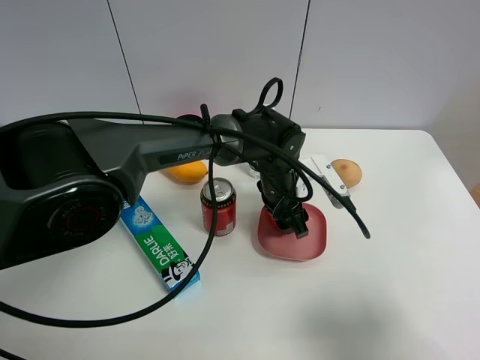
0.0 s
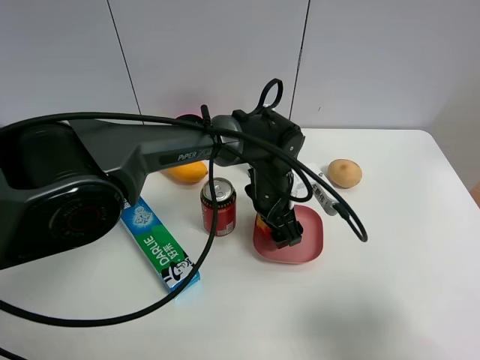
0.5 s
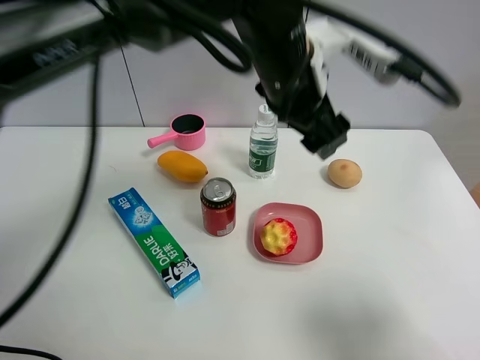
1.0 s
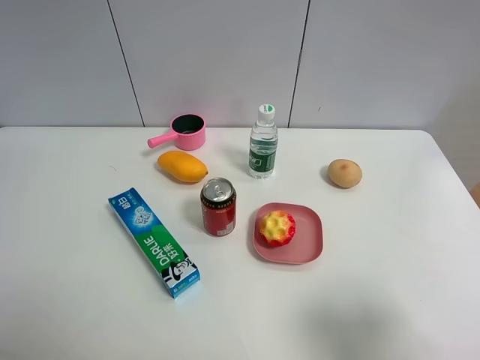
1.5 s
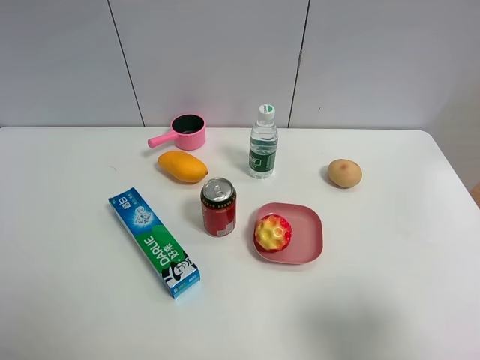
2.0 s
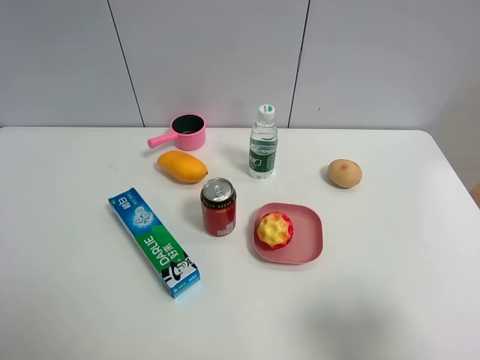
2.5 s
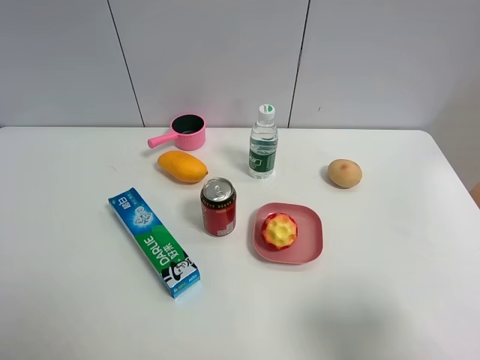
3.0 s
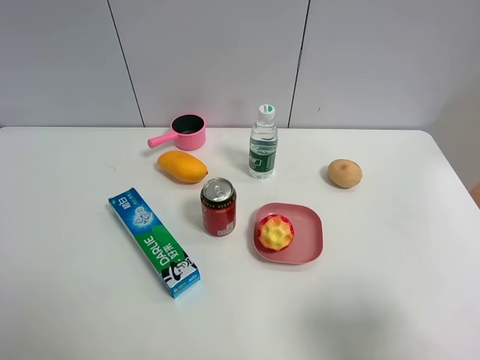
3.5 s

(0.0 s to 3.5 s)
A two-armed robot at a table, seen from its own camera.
Task of the whole recording: the gripper move the object.
0.0 s - 2.0 s: The left gripper moves upward, to the left and backward, some 70 cm, and opens up.

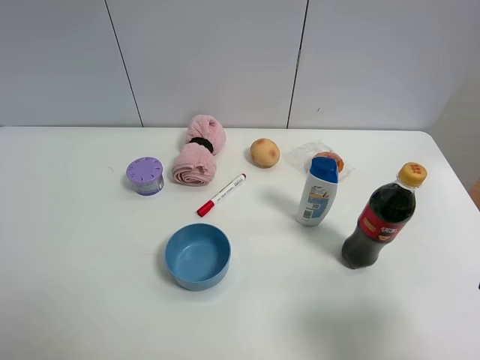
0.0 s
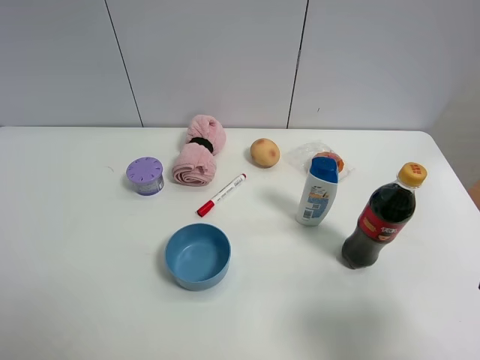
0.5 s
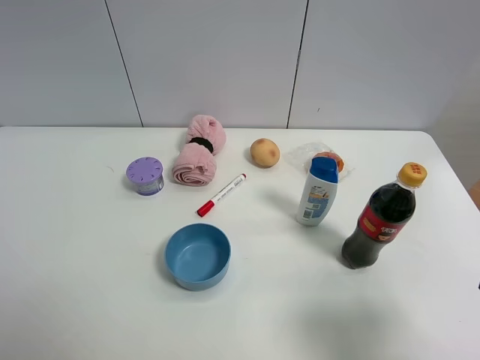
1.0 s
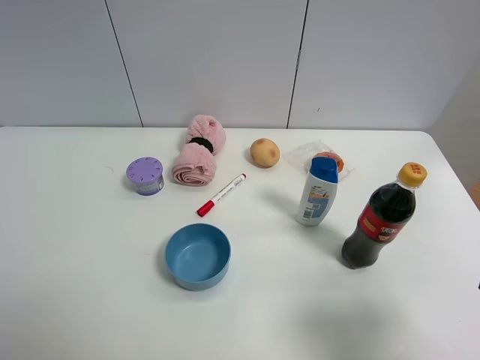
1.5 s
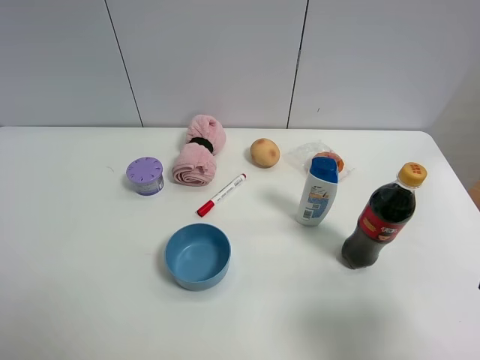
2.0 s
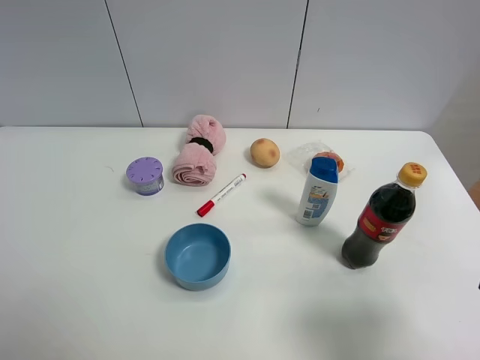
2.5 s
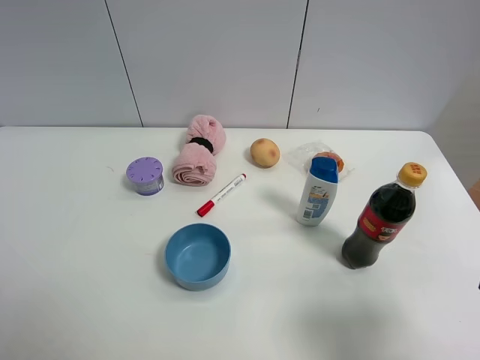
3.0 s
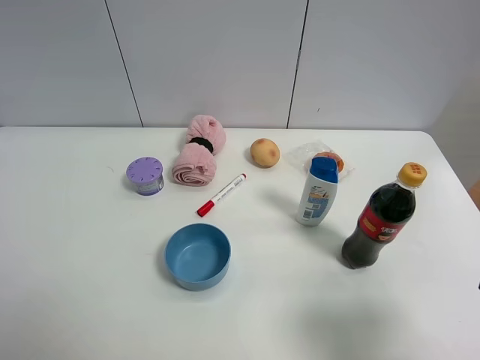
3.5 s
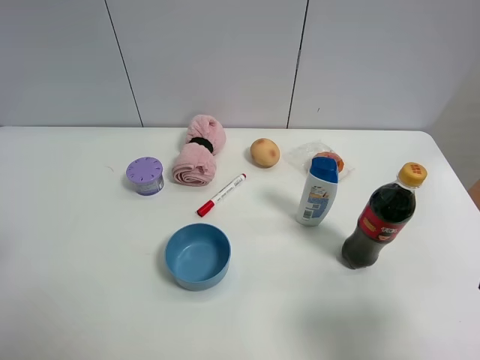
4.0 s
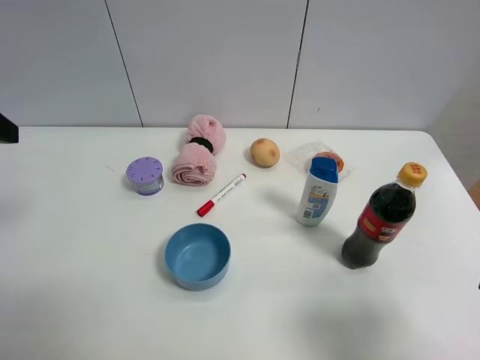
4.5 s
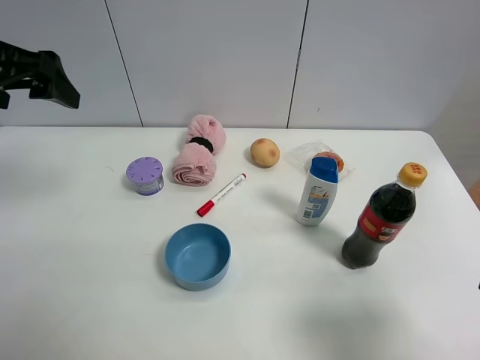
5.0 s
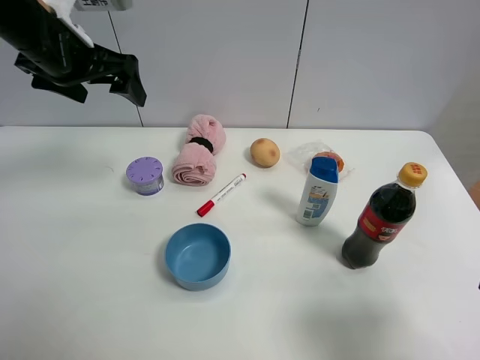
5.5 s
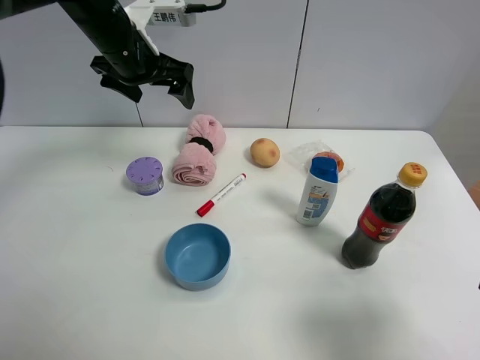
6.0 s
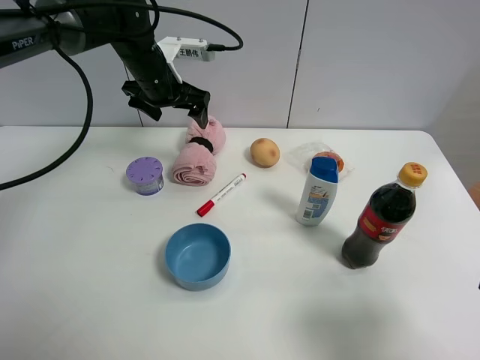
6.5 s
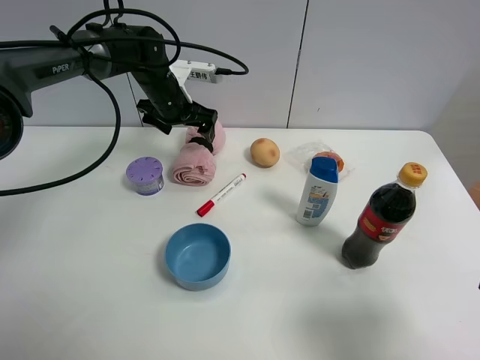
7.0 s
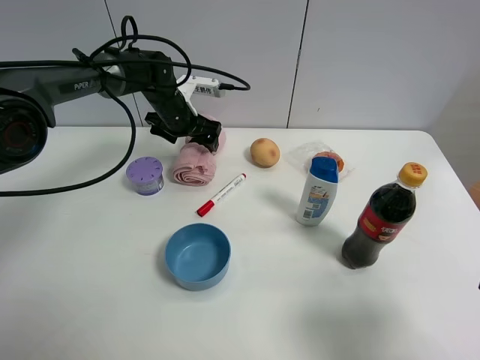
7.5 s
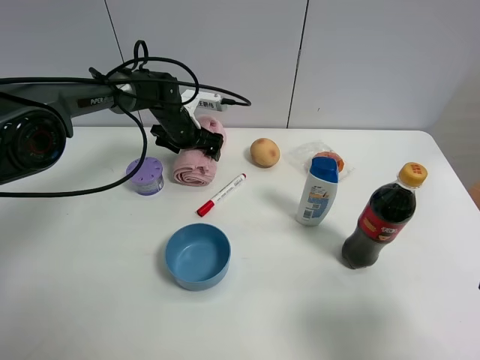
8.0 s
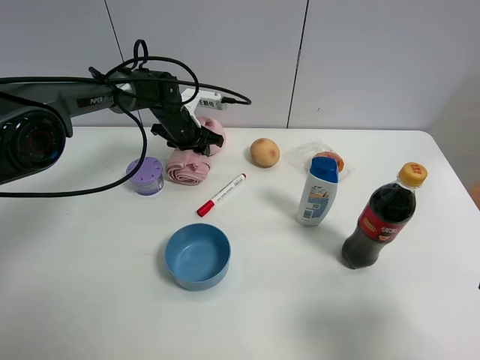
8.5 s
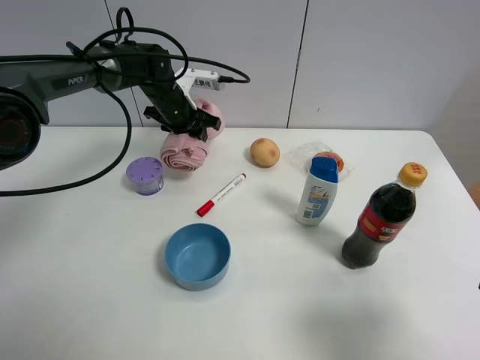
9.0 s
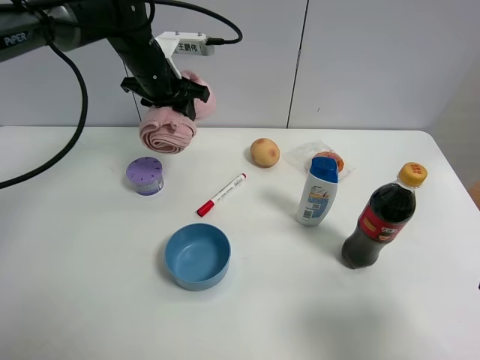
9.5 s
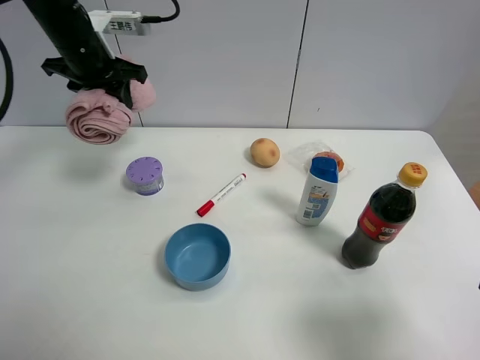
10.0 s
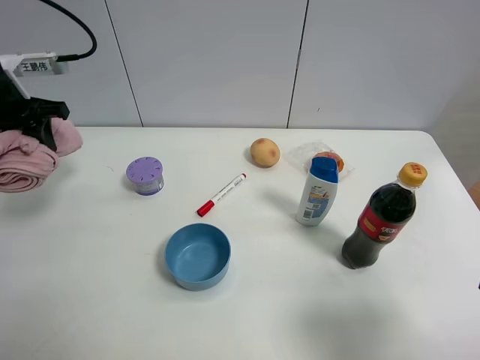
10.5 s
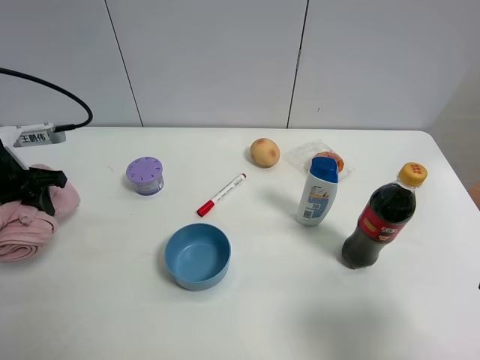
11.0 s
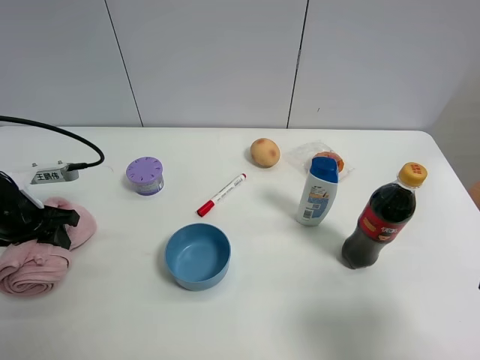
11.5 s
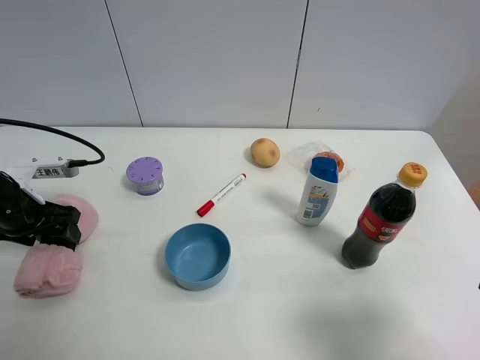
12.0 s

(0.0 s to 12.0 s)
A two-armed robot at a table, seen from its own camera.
Task of the whole recording: the gripper move the object.
Step, 0.0 s - 8.0 s: Grasp the pink towel with the left gripper.
0.0 s - 2.0 s: Both grippers stay put.
4.0 s - 6.0 s: The left gripper is displaced forward and to the right by some 35 cm.
6.0 s - 8.0 s: The left gripper moves downward and forward, about 20 cm.
8.0 s - 10.0 s: The left gripper travels upward and to the left by roughly 20 cm, and closes its fingers.
10.0 s - 12.0 s: The left gripper shifts approximately 25 cm backward, downward and to the left, and opens its fingers.

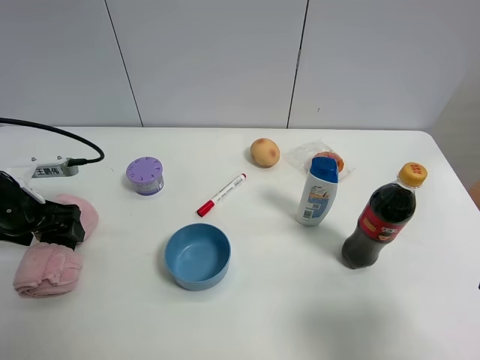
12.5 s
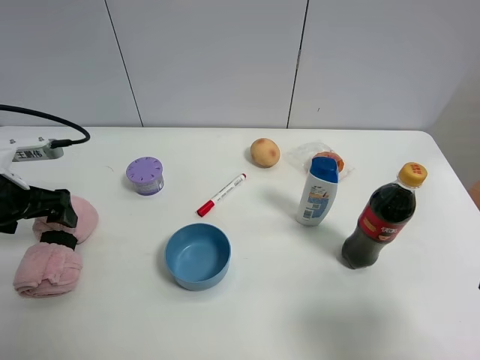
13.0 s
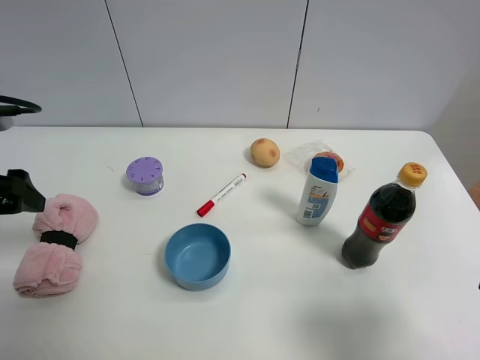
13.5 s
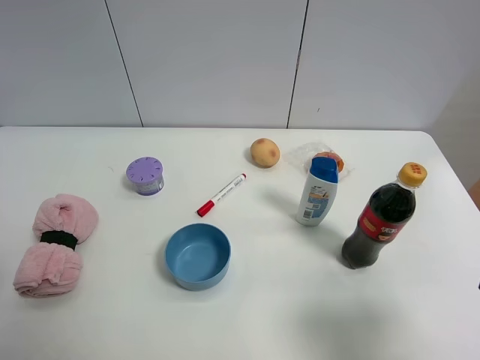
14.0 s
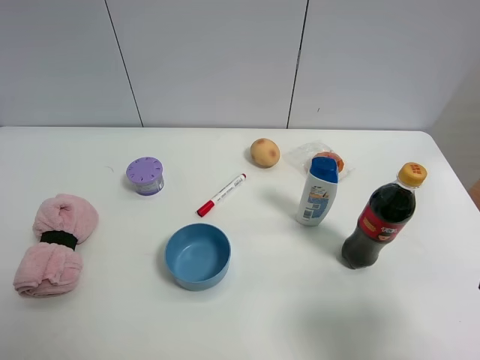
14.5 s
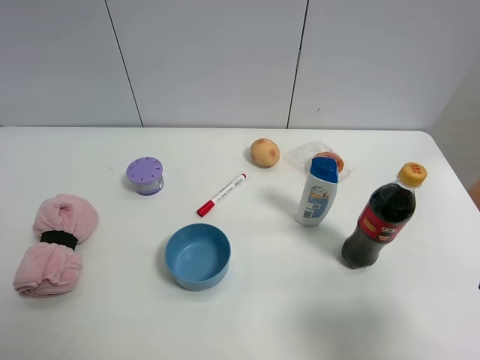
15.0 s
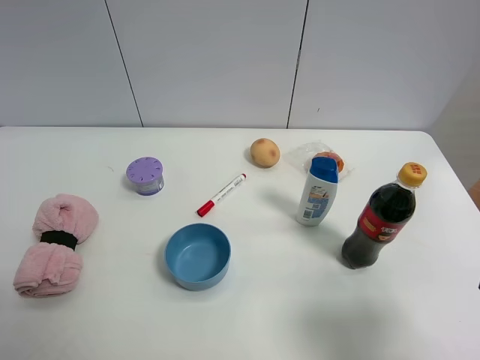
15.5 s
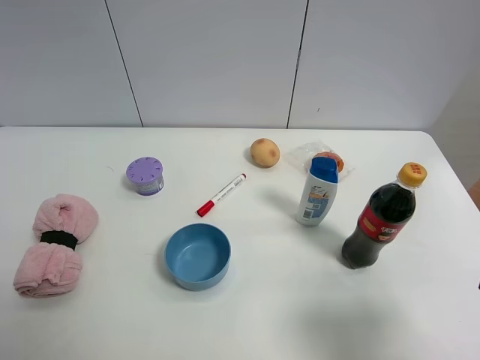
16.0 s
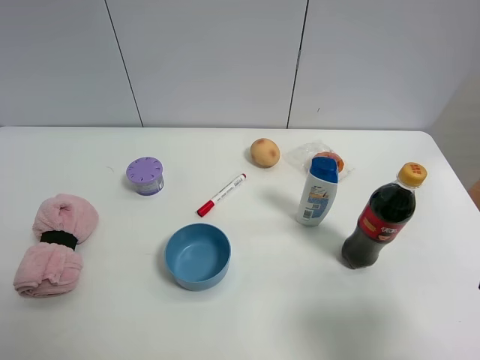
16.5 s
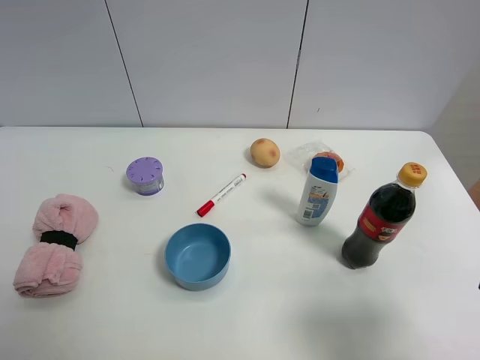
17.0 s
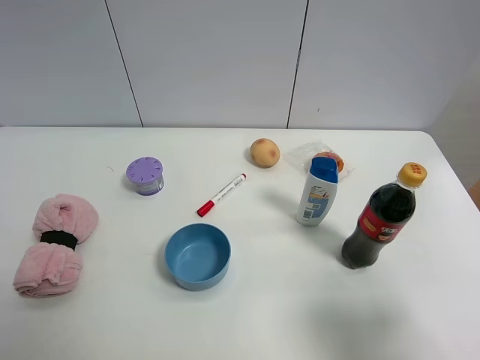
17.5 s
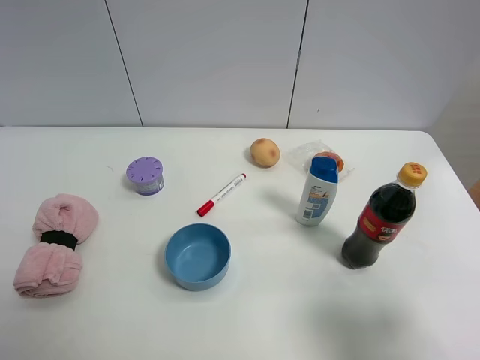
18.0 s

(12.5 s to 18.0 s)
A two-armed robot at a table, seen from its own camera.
Task of the whole recording: the gripper move the object.
12.5 s - 14.5 s: The left gripper is displaced backward and upward by approximately 30 cm.

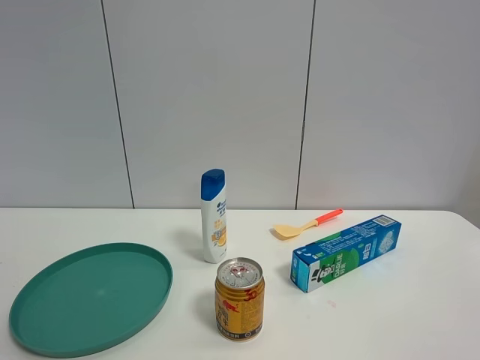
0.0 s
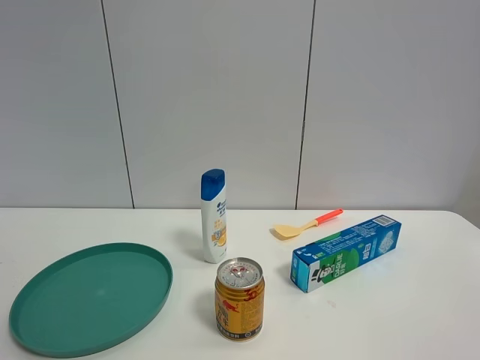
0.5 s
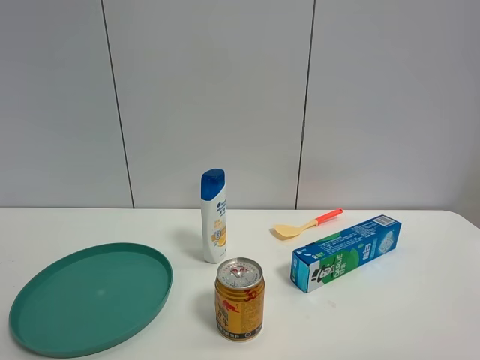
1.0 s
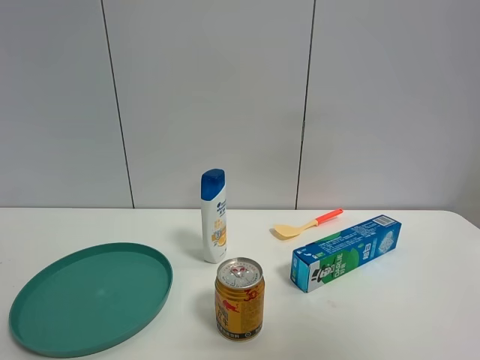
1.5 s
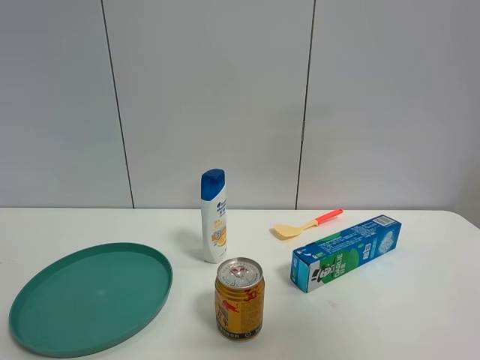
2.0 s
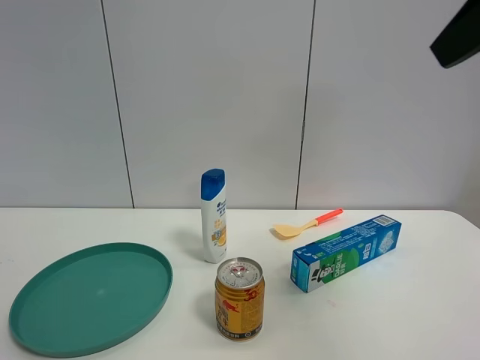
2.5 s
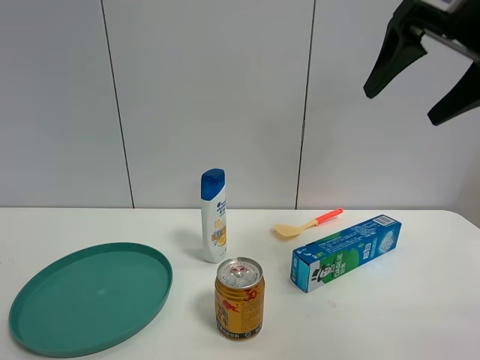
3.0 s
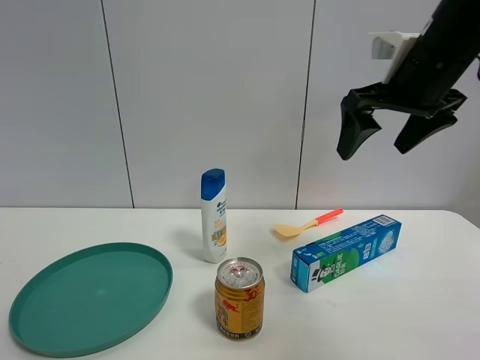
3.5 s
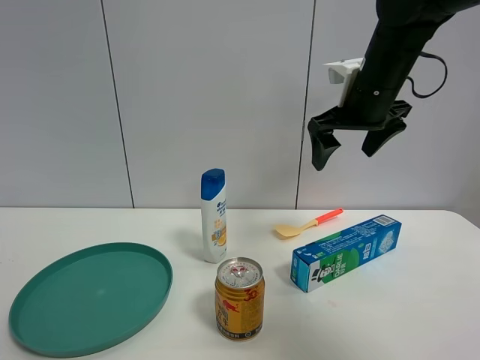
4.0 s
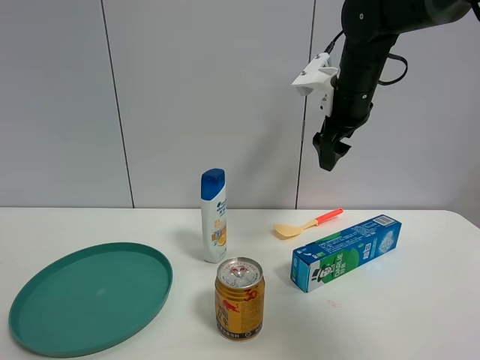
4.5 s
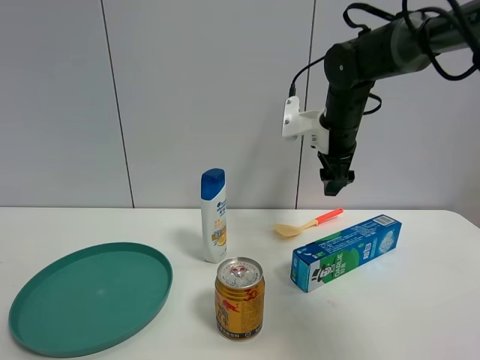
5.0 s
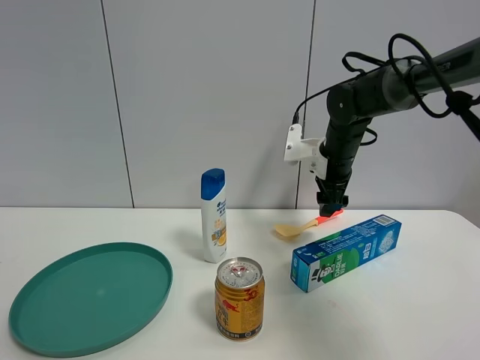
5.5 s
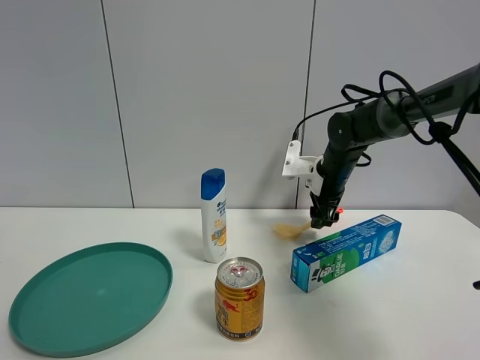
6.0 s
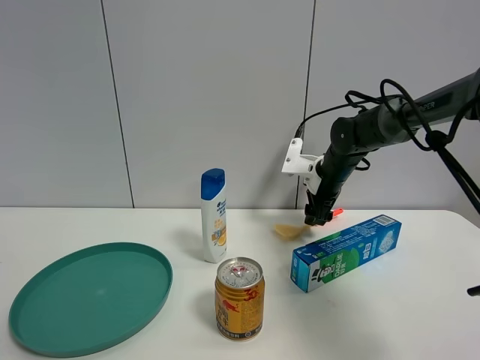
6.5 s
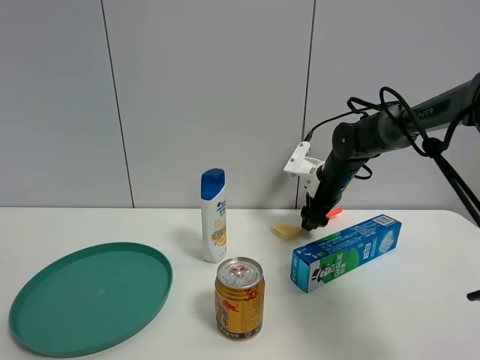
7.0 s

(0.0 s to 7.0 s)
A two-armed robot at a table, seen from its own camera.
Task of the whole recording: the gripper move the object.
0.0 s - 2.0 s: The right gripper moves upward and forward, roughly 15 cm.
2.0 s - 3.5 s: The right gripper is displaced forward by some 25 cm.
3.5 s - 5.0 s: The right gripper heads forward and downward, covering approximately 15 cm.
5.0 s - 7.0 s: The right gripper shifts approximately 10 cm downward.
